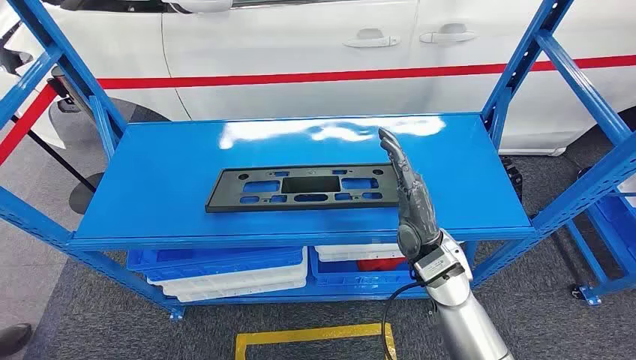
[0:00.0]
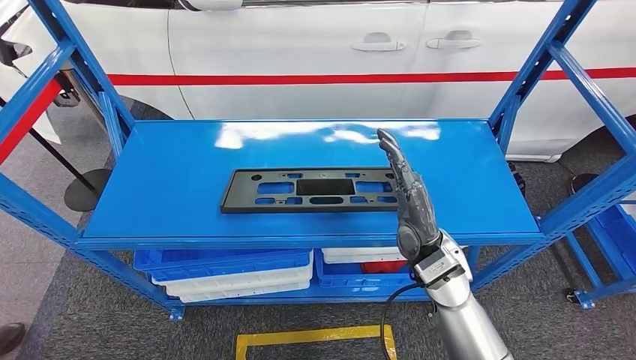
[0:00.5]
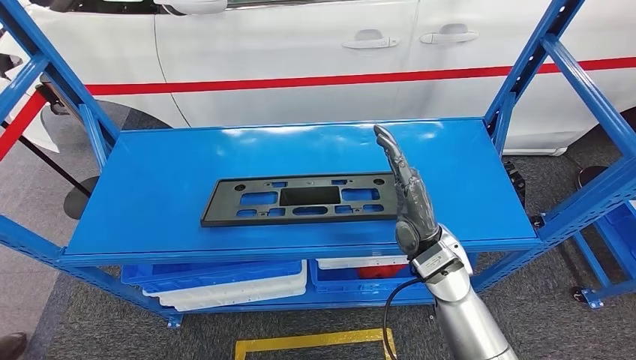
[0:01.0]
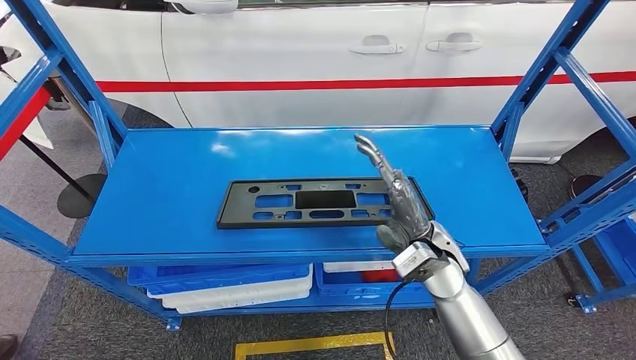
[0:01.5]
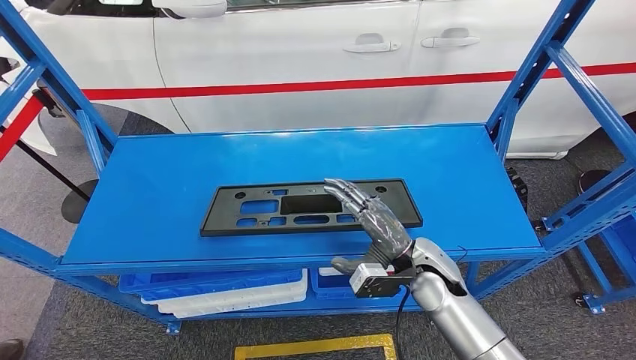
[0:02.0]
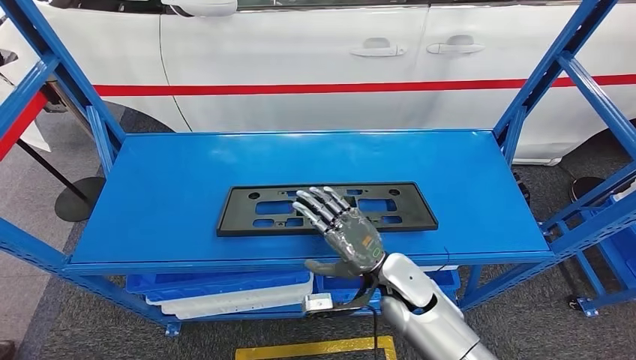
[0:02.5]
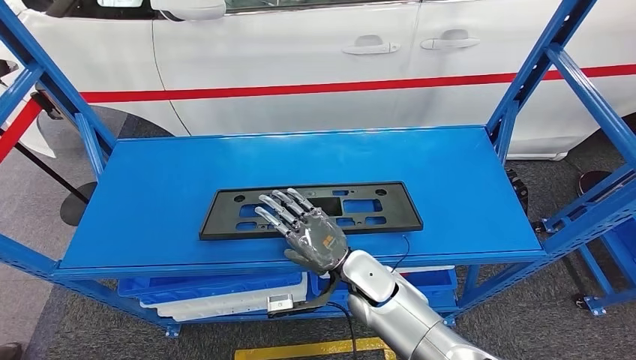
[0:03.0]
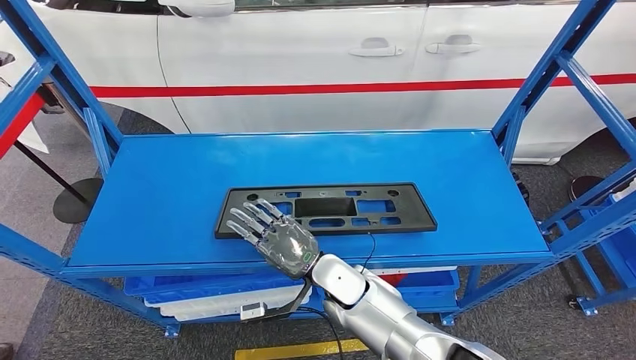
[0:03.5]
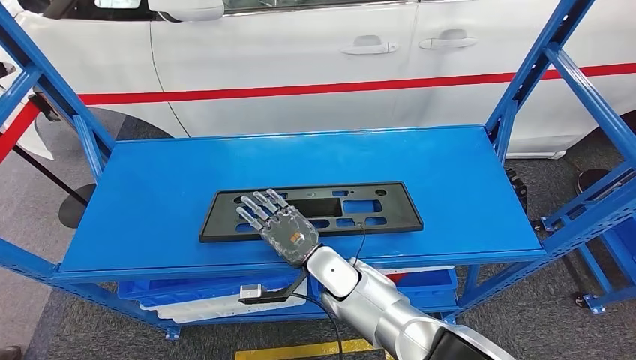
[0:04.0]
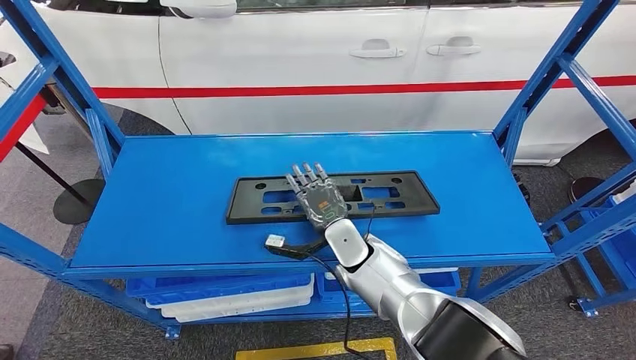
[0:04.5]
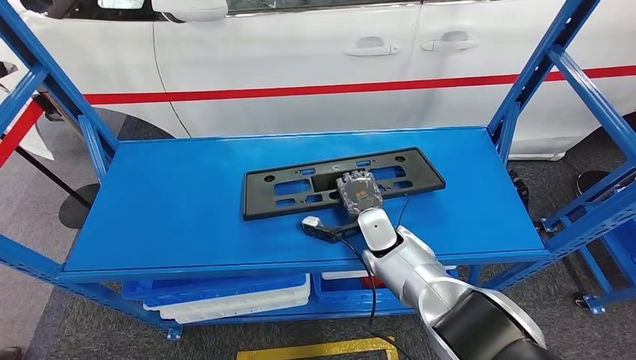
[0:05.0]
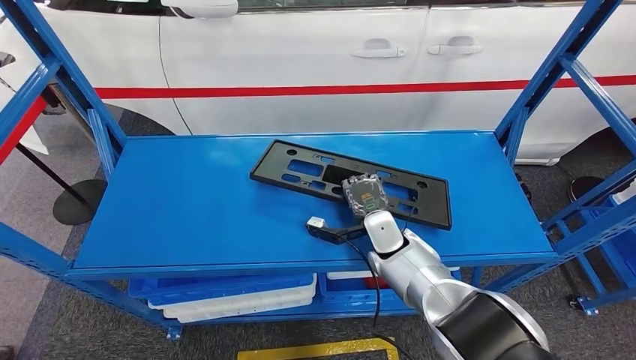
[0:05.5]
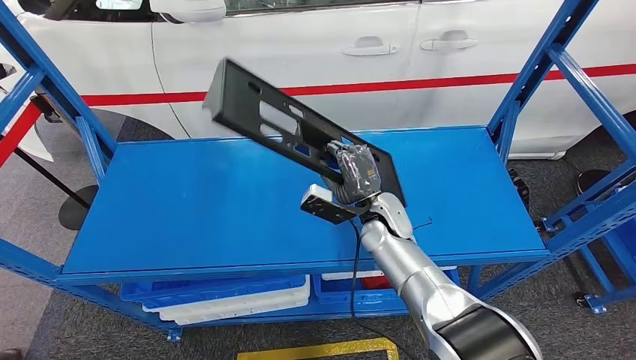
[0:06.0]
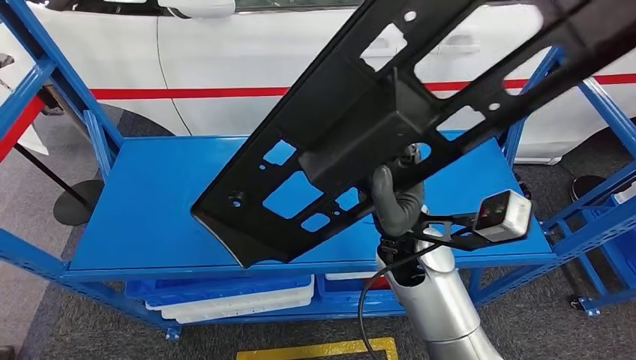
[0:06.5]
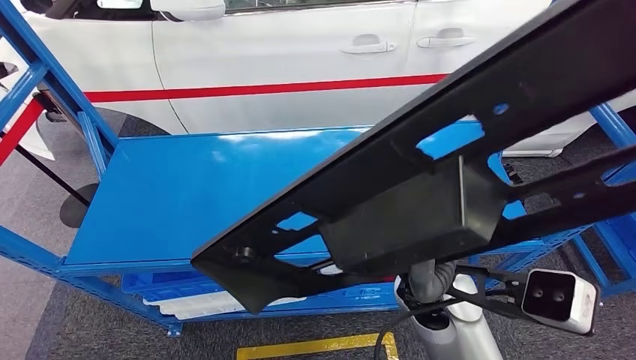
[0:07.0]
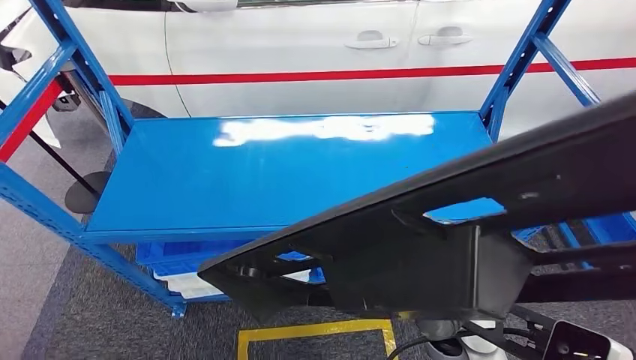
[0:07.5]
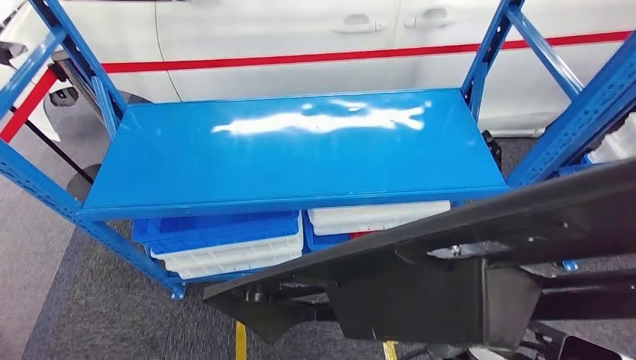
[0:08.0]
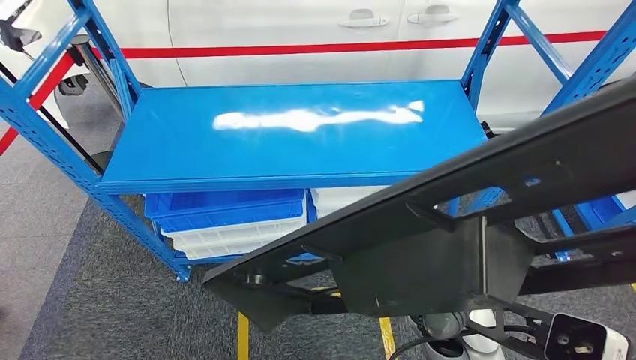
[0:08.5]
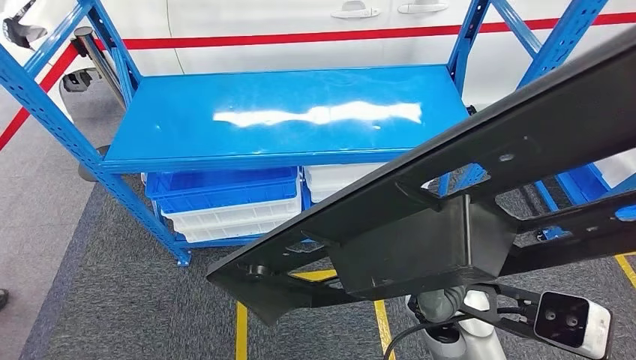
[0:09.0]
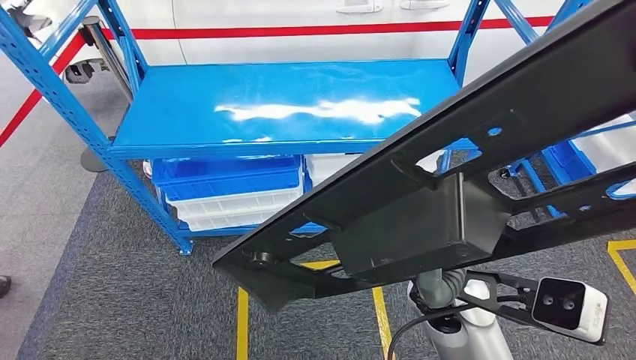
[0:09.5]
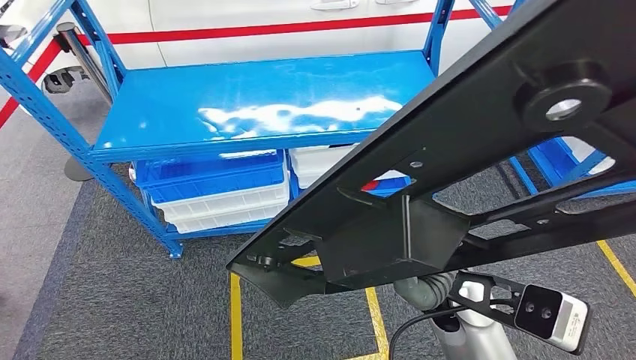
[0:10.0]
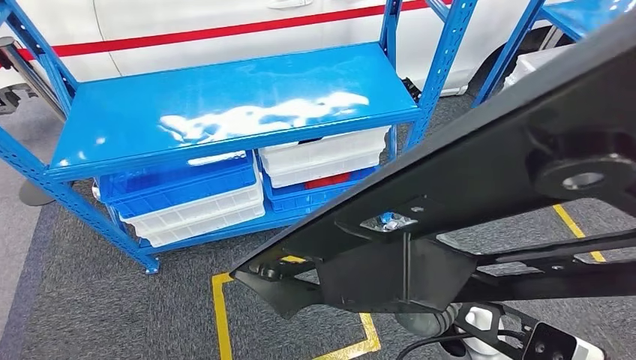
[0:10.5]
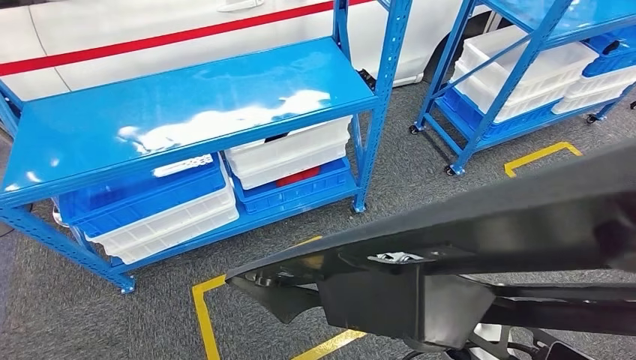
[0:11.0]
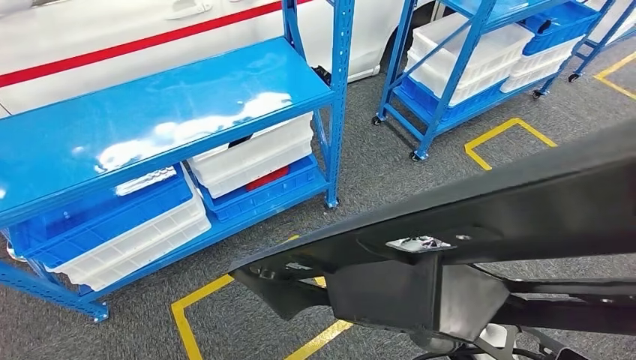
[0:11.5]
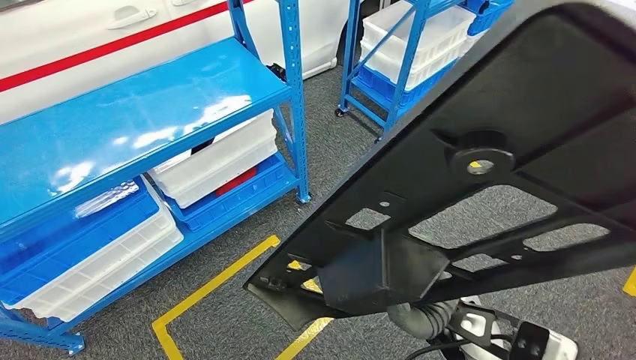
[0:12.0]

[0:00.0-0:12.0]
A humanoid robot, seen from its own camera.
Step, 0:00.0 to 0:07.0: Pick up the large material from the shelf.

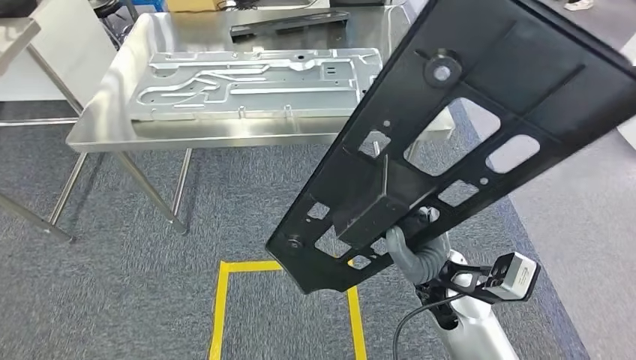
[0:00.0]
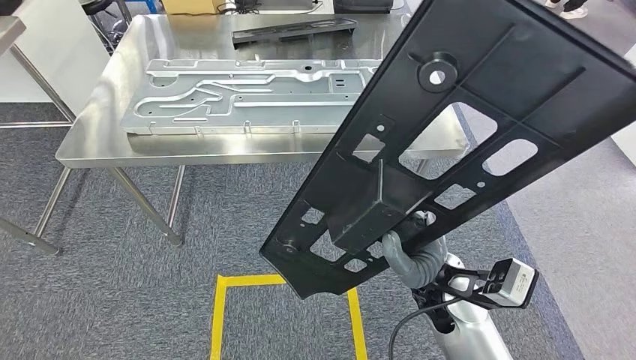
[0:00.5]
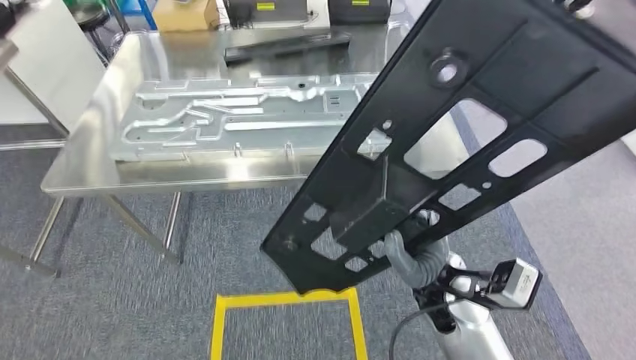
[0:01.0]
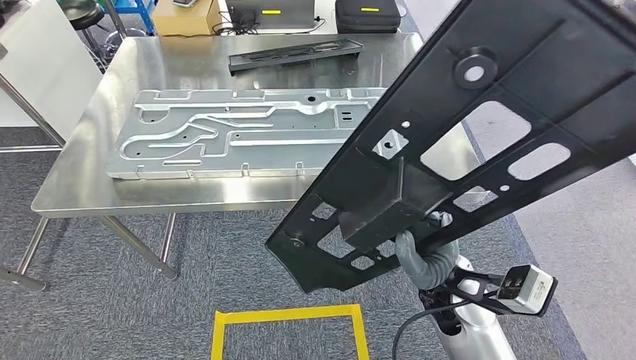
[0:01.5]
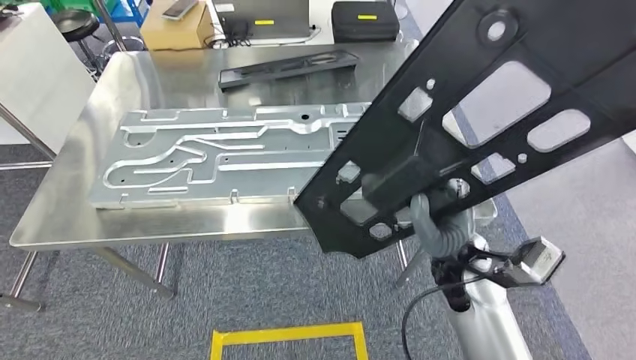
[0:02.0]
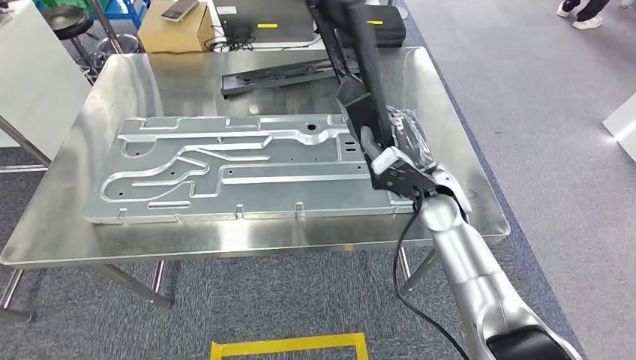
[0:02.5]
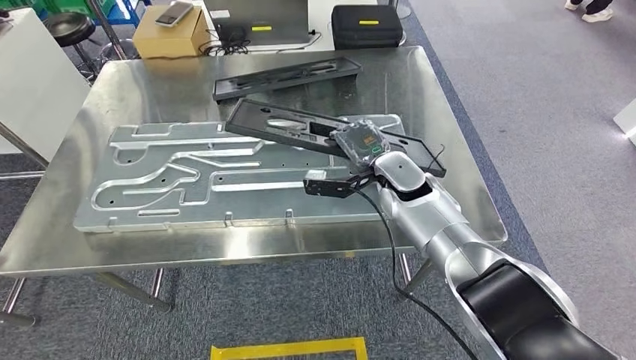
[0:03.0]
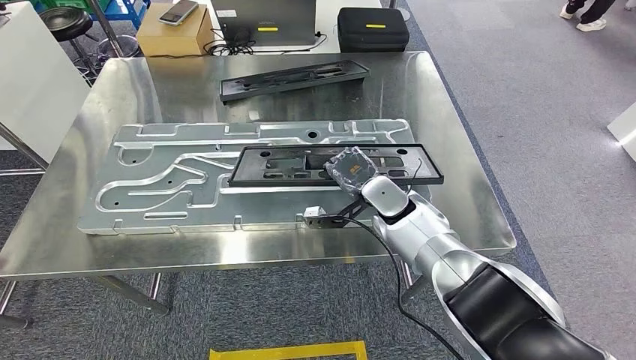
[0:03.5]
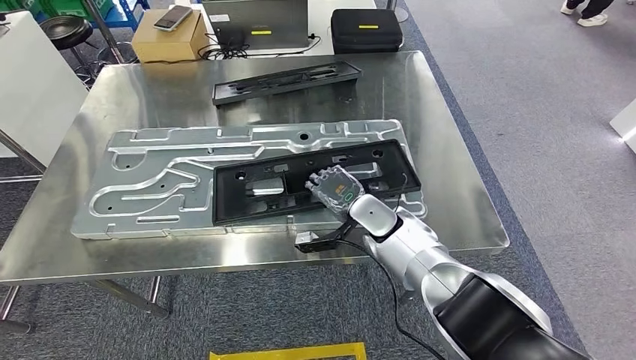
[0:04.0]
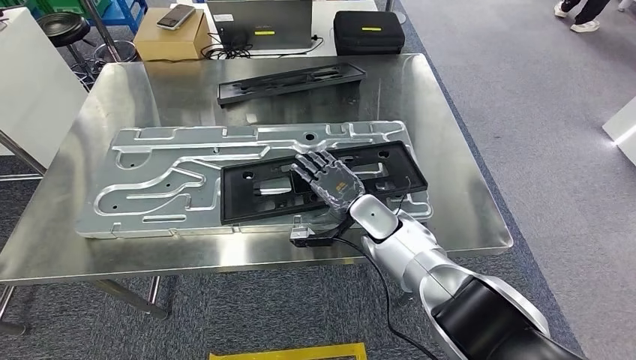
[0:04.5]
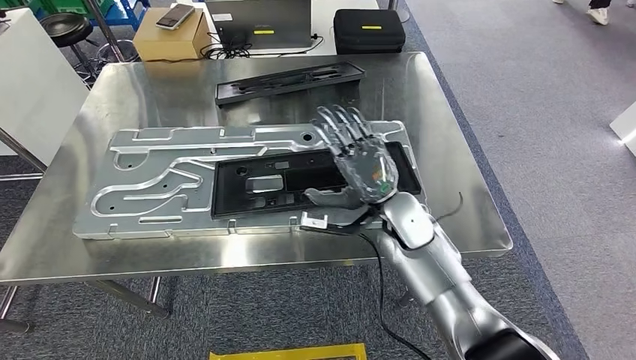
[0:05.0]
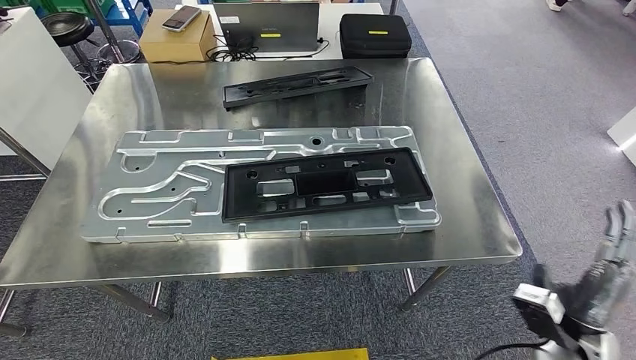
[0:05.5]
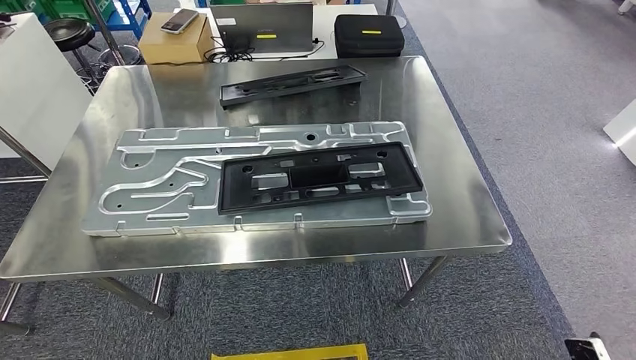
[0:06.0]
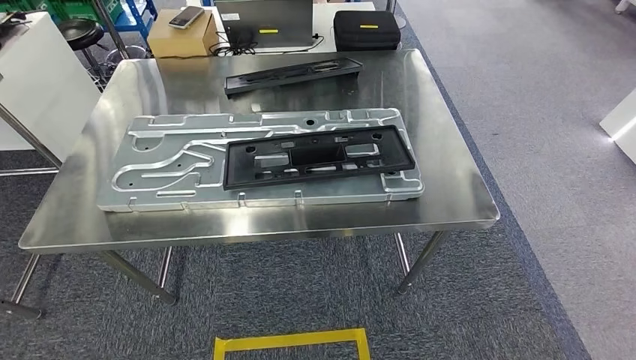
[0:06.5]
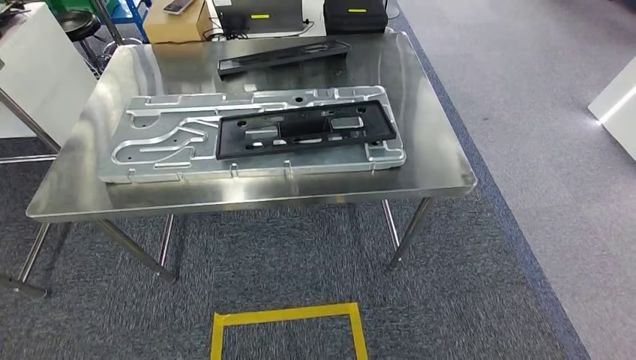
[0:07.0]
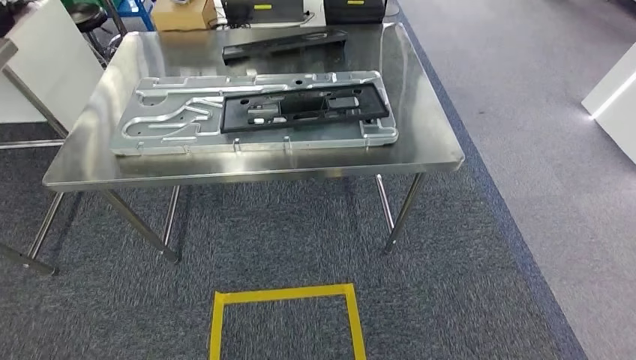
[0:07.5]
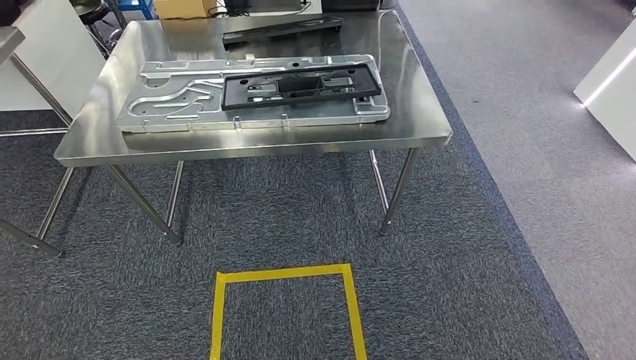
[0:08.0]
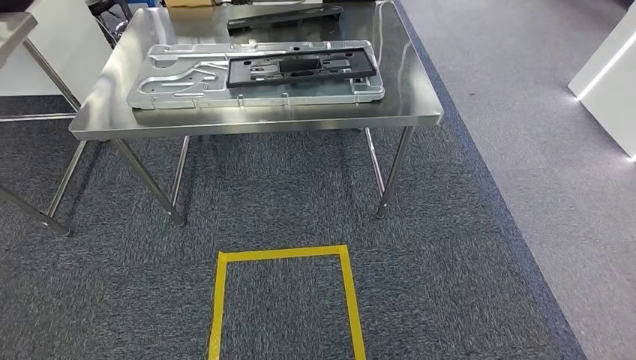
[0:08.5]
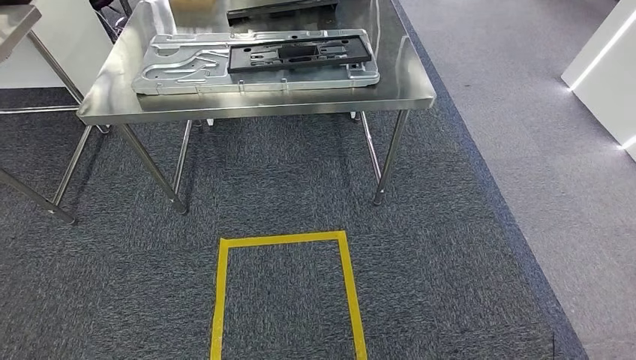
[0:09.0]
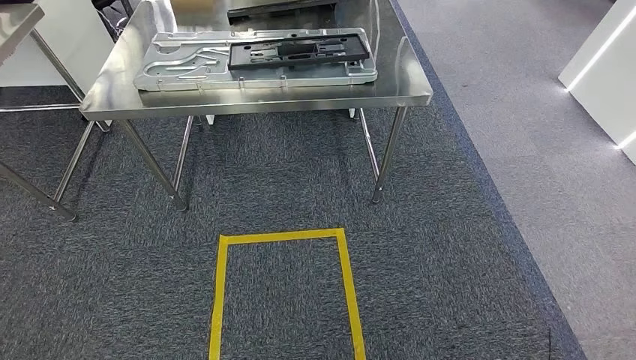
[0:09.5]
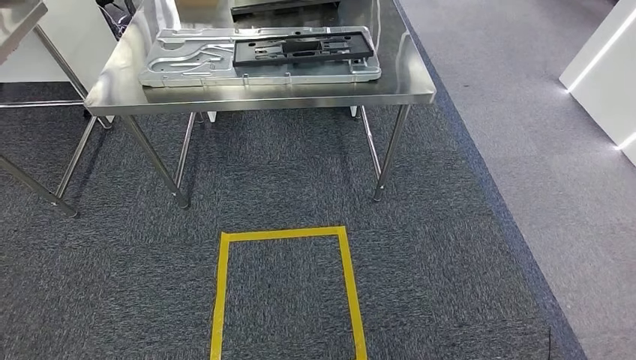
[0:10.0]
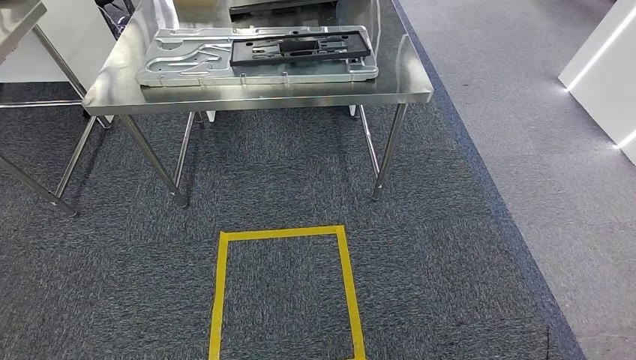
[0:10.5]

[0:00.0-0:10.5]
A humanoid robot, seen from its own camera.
Step, 0:01.5 to 0:05.5: Insert the large material into the corresponding slot on the workbench.
Step, 0:06.0 to 0:10.5: Move to the initial position of the shelf.
0:08.5 to 0:10.5: The hands stay close to where they were, moving slightly.
